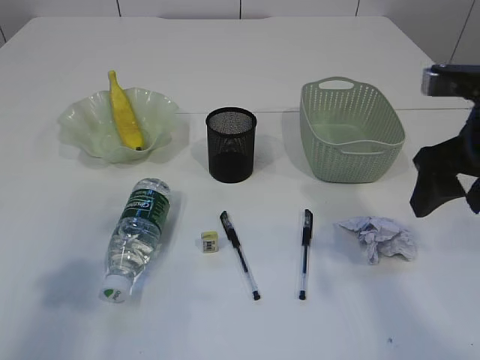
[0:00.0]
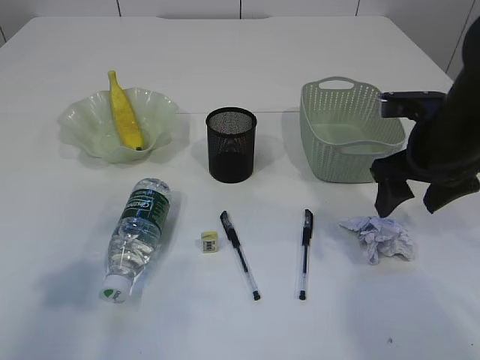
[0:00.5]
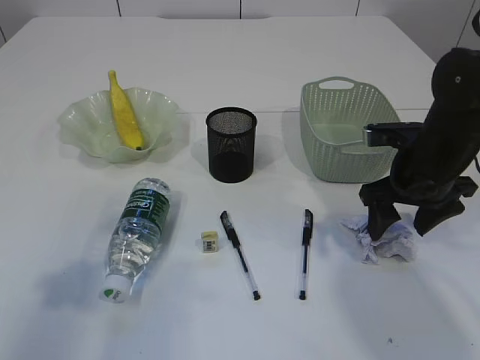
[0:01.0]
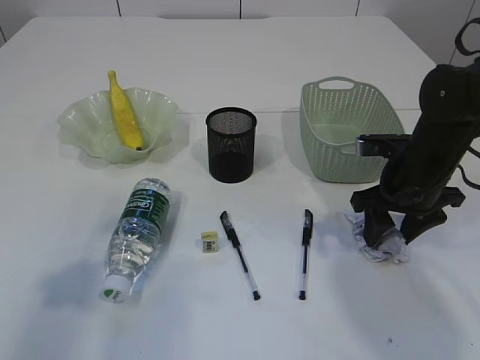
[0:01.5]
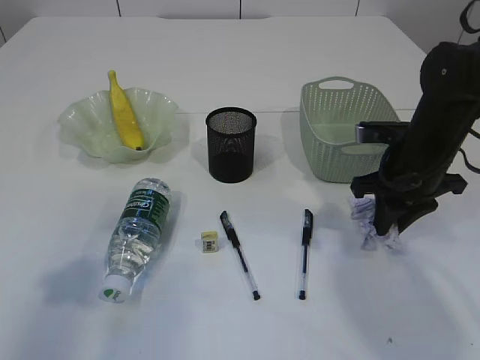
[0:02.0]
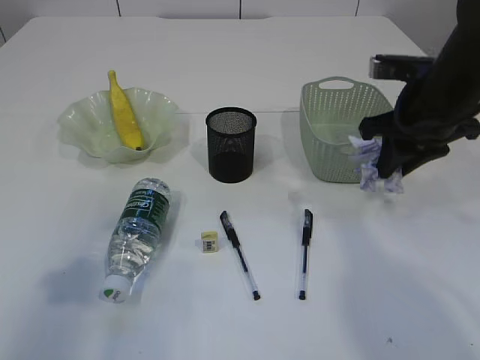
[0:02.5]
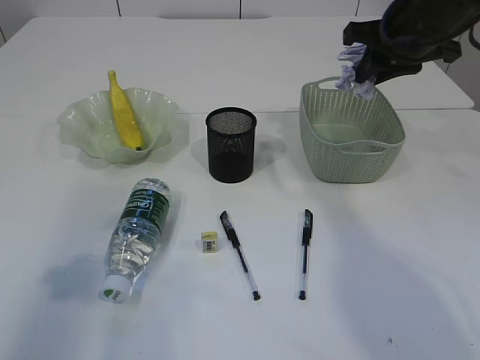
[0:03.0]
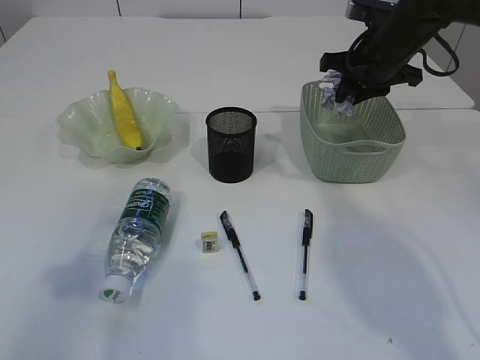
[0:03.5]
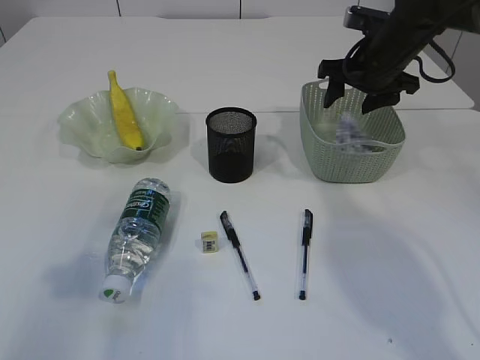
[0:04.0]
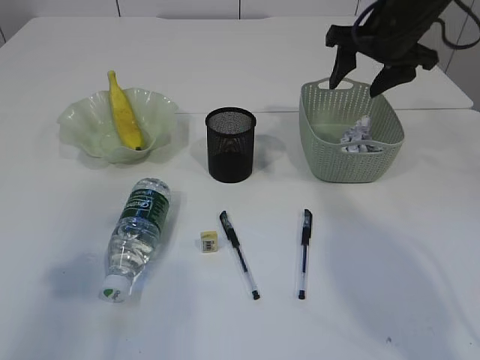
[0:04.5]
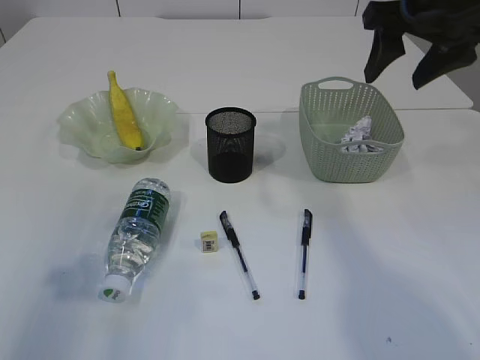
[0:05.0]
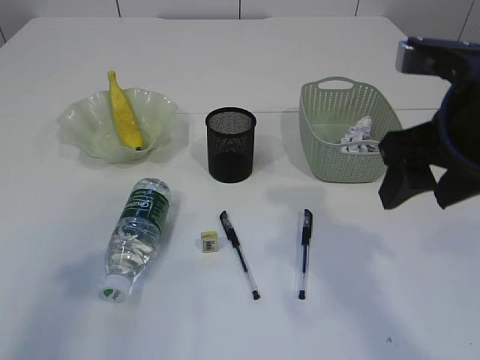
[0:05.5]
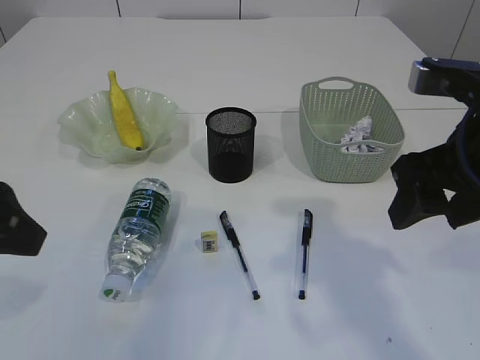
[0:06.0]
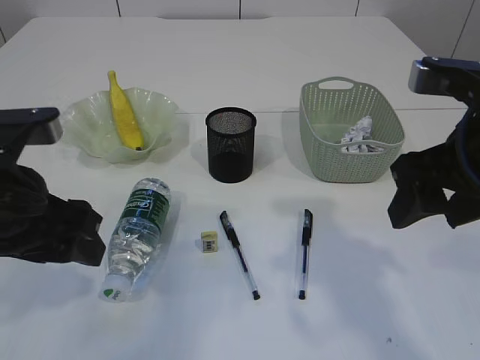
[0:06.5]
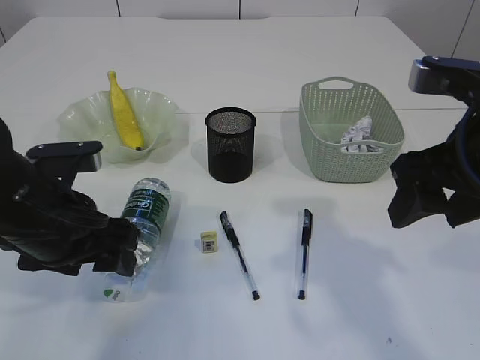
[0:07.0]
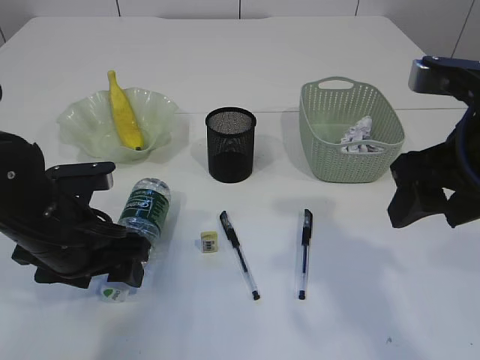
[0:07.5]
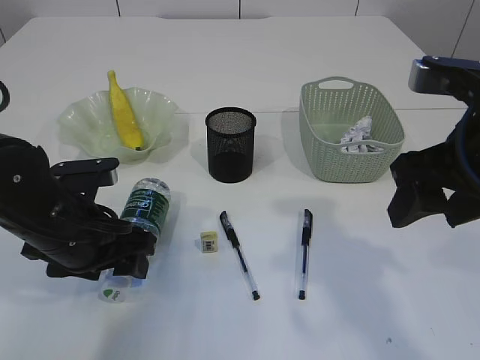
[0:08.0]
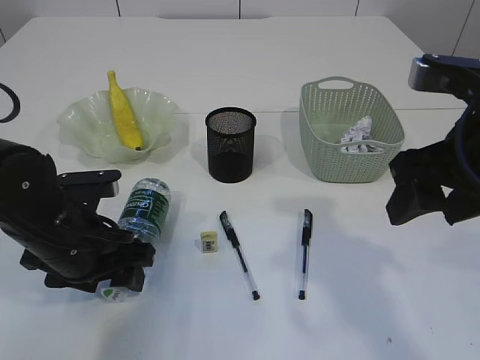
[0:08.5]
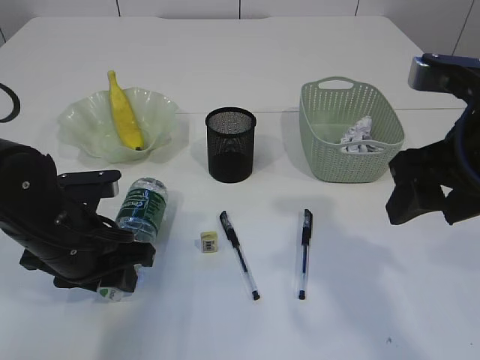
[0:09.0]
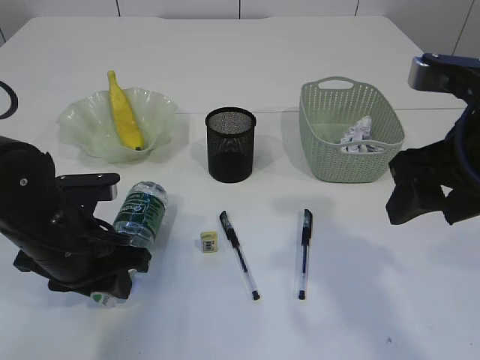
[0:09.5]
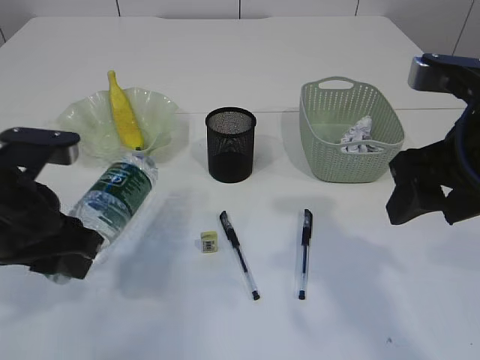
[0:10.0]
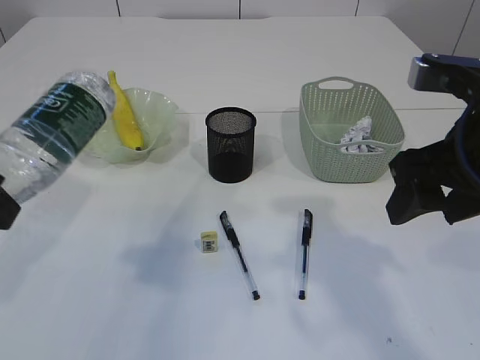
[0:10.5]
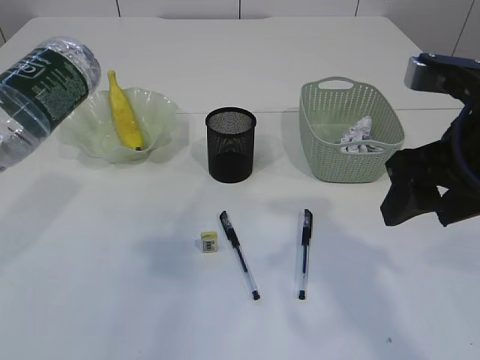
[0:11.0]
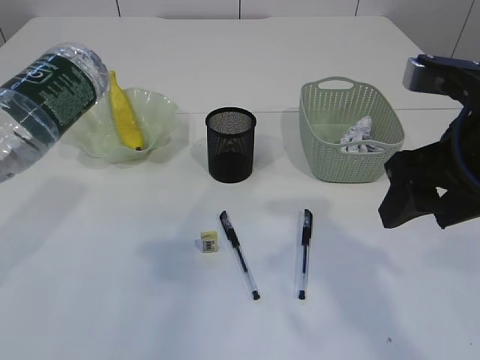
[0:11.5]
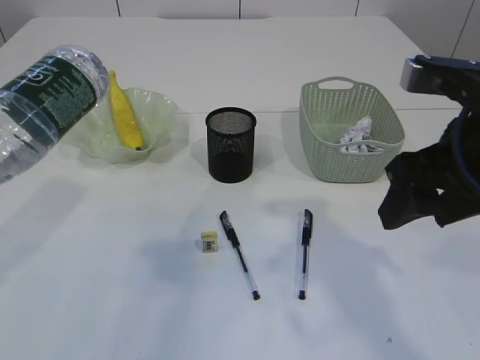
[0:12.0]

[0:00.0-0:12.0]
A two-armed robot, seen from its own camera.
Step, 0:00.0 to 0:02.0: Pick up the waste paper.
Step, 0:02.5 to 0:04.0: Place the waste paper in the basket.
Step, 0:04.5 to 0:10.0: Pick up the bottle with the left arm.
0:00.0 to 0:02.0: The right gripper moves downward and forward, about 15 cm, and closes.
0:02.0 to 0:04.0: The right gripper goes roughly 15 cm forward and upward, and opens.
0:04.0 to 0:06.0: The left gripper shifts roughly 5 cm to the right, while the right gripper is displaced backward by roughly 25 cm.
0:06.0 to 0:08.0: The left gripper is displaced downward and forward by some 15 cm.
0:08.0 to 0:10.0: The left gripper travels upward by about 5 cm, and closes.
0:10.0 to 0:12.0: The left gripper goes approximately 15 cm upward.

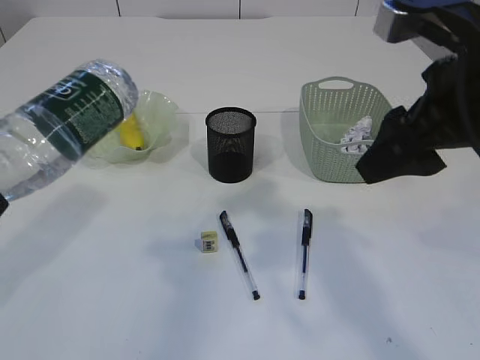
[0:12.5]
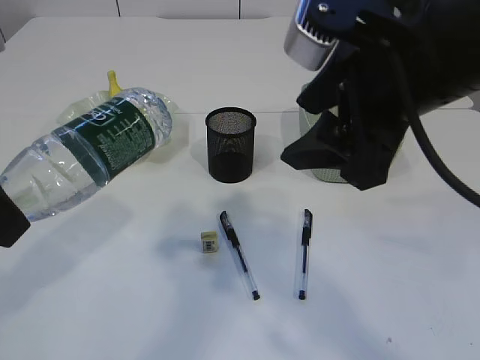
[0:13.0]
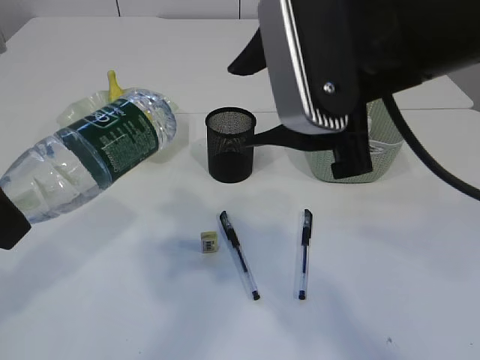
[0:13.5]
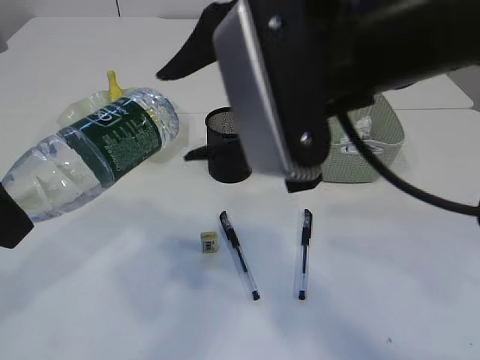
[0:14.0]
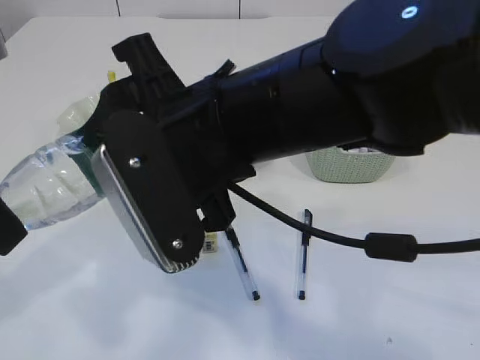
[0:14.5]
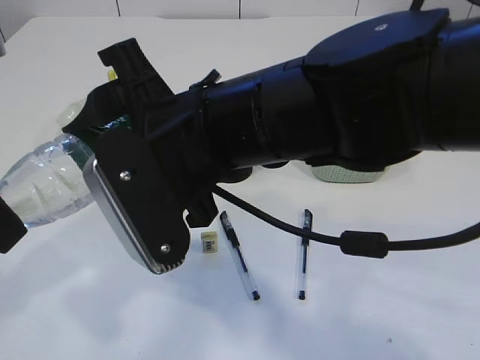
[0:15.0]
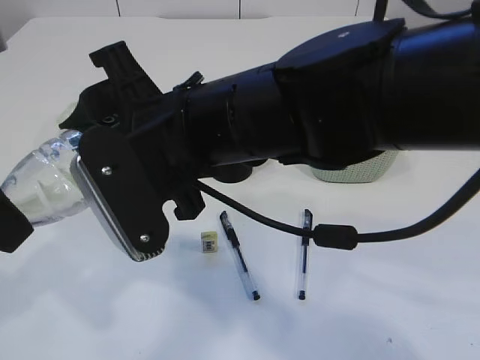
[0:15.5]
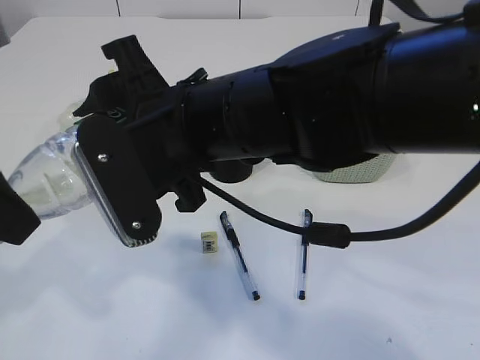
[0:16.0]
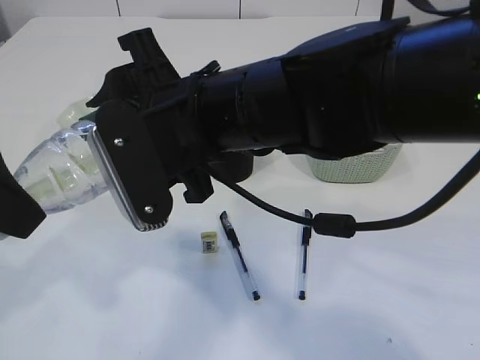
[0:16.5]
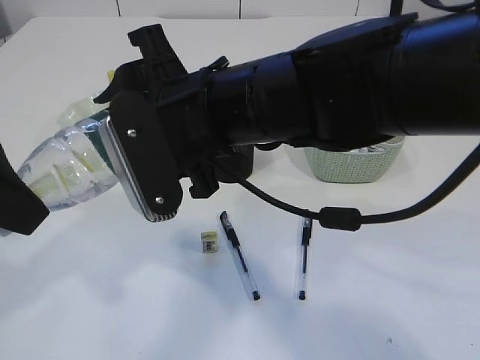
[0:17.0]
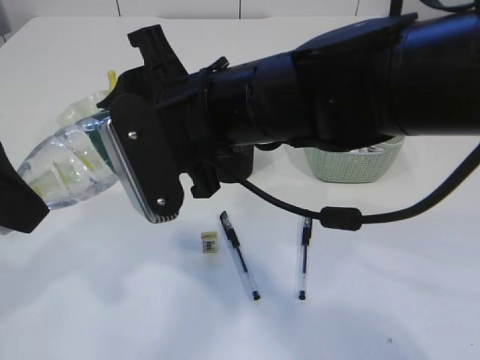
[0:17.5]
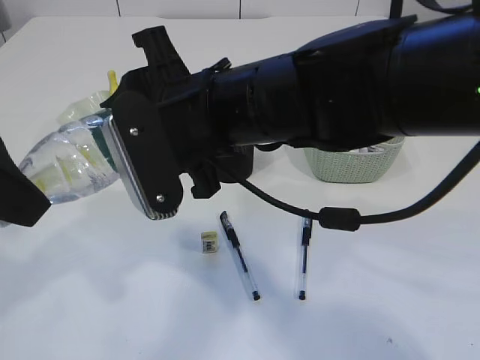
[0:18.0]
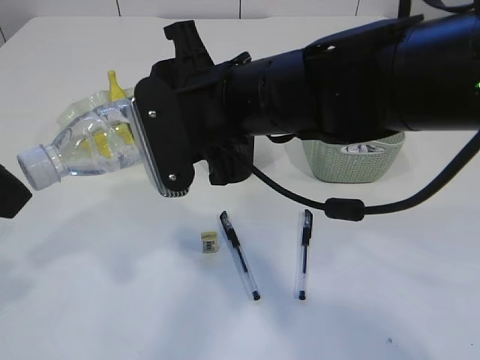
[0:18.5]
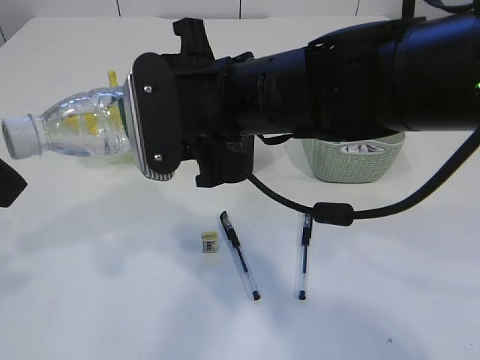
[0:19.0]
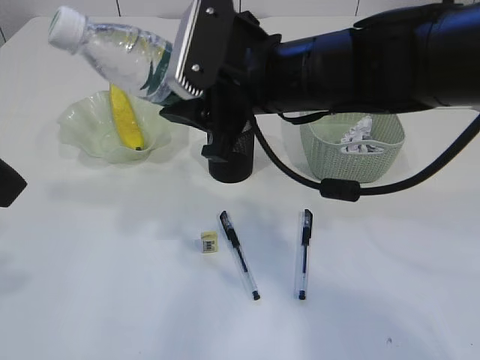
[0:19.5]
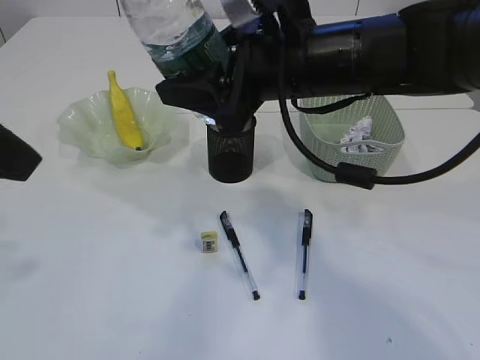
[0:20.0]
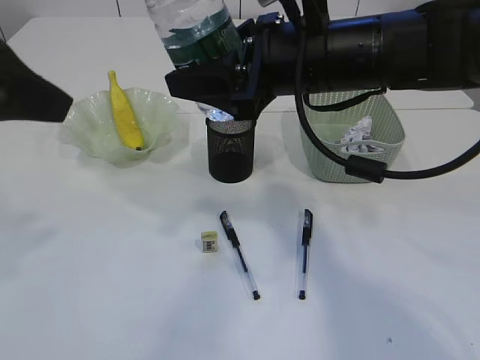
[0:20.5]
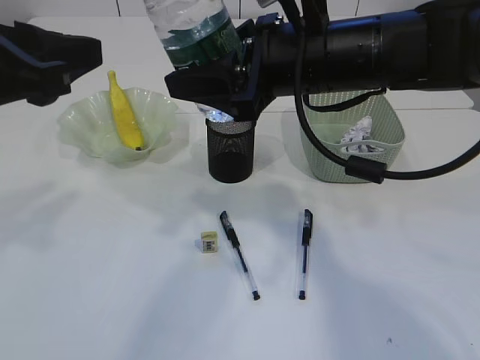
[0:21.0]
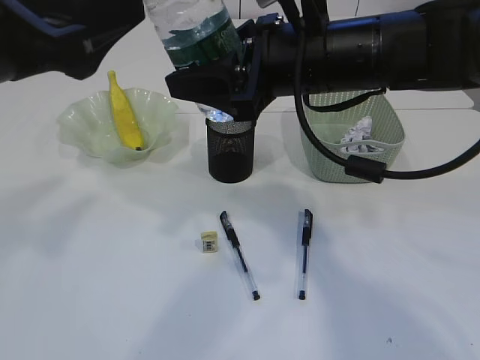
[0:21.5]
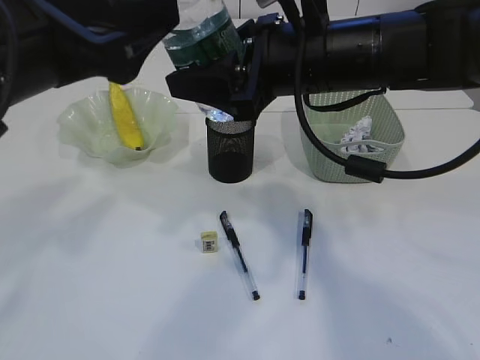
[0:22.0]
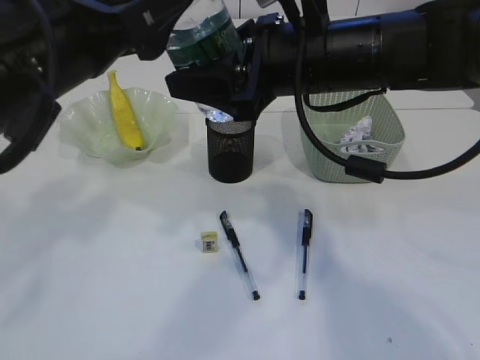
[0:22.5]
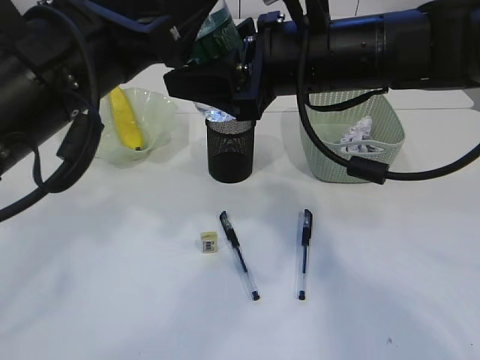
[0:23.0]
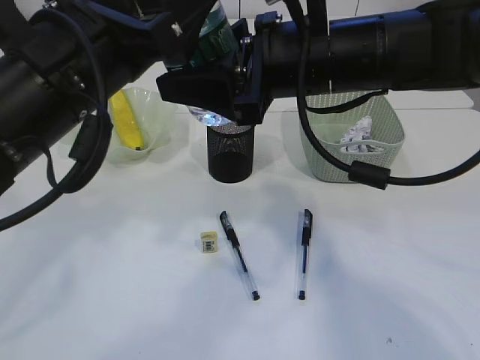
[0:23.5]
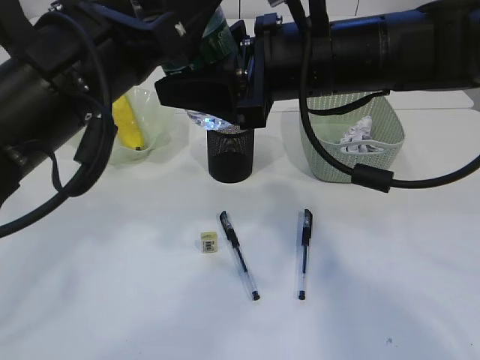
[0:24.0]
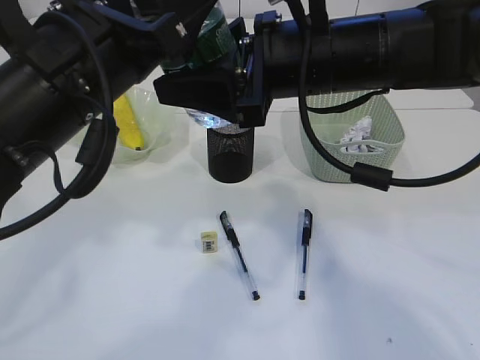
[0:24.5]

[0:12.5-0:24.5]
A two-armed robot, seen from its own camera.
Step, 0:12.5 to 0:19.0: Pick up the bottle with the right arm.
0:12.5 to 0:14.5: The right gripper moves to the left, roughly 20 cm.
0:14.5 to 0:16.5: There are only small adjustments of the grippers.
0:16.5 to 0:18.5: The grippers move only a little.
0:18.5 to 0:20.5: The right gripper travels to the right by approximately 5 cm.
0:20.5 to 0:22.5: The left gripper shifts some 10 cm to the right and downward, and opens its fingers.
0:22.5 to 0:24.5: The left gripper closes.

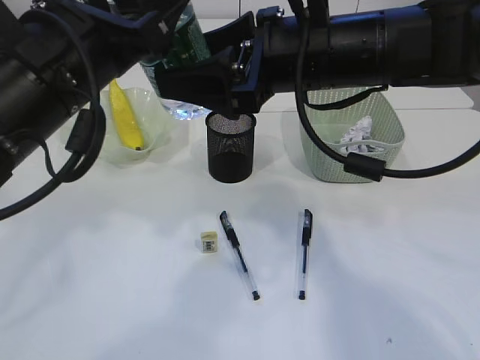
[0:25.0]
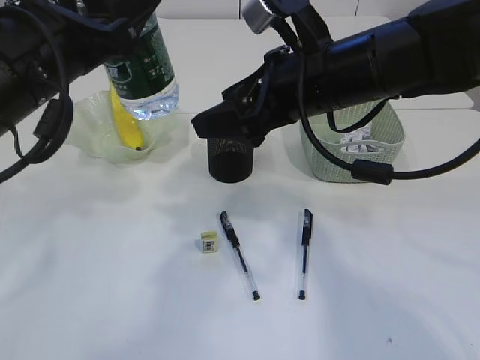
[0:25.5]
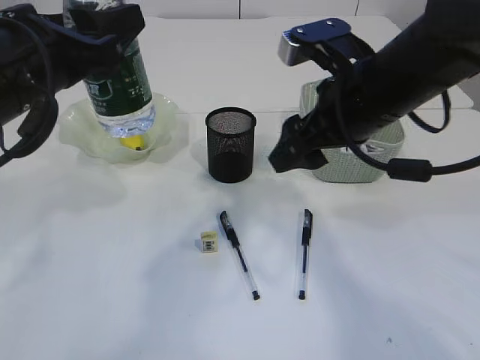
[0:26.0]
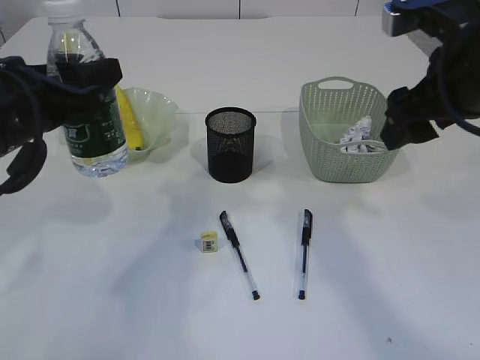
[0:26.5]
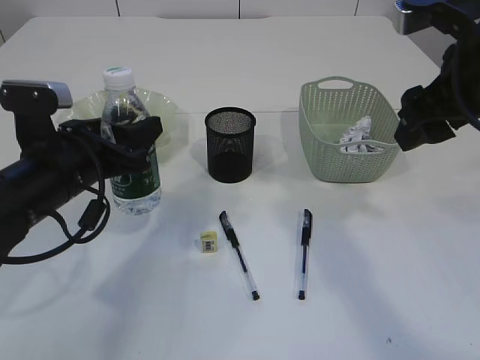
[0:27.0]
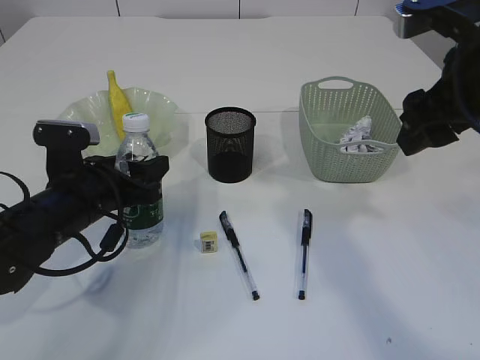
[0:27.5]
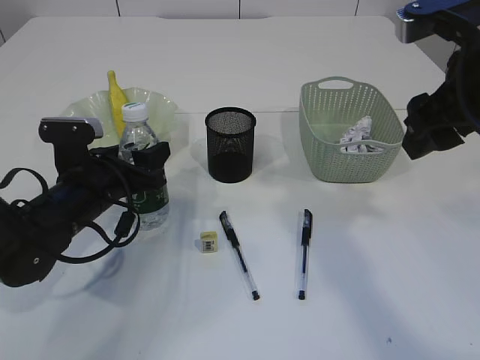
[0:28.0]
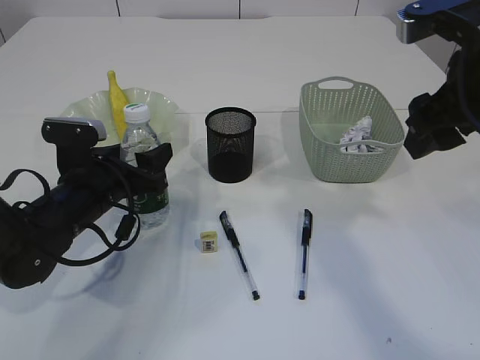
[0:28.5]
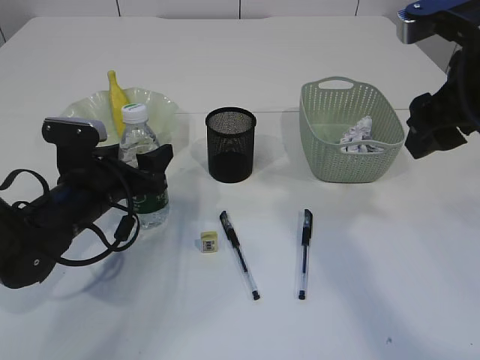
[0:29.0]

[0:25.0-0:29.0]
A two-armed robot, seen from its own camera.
0:25.0 to 0:27.0: The right gripper heads to the right, covering roughly 15 cm. Meanwhile the left gripper heads downward and to the left, covering about 15 cm.
0:27.0 to 0:29.0: The left gripper goes roughly 5 cm downward.
